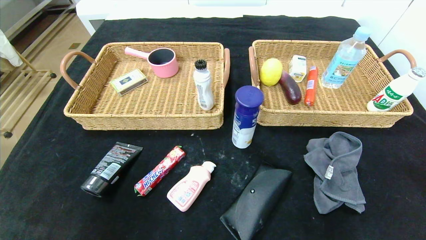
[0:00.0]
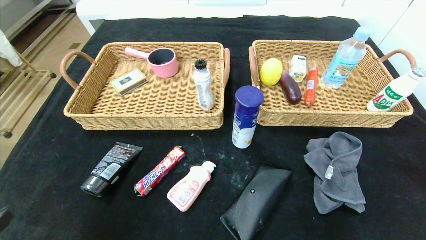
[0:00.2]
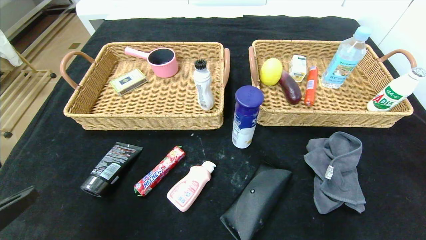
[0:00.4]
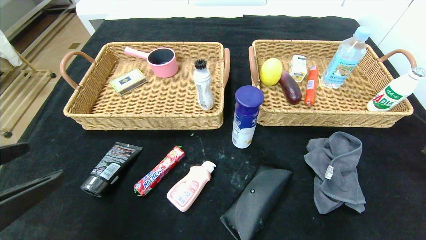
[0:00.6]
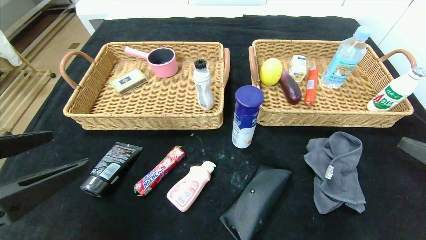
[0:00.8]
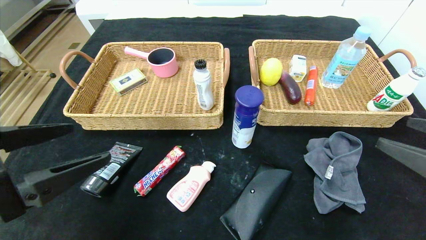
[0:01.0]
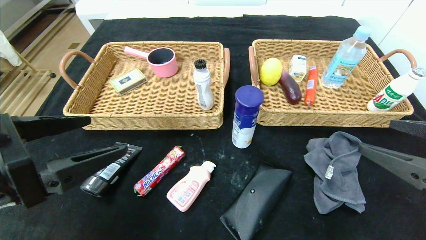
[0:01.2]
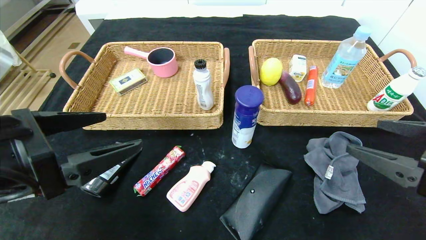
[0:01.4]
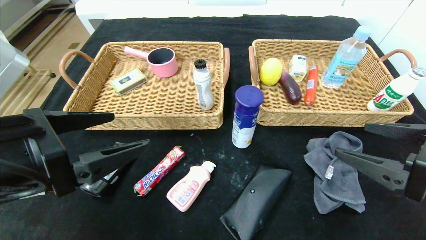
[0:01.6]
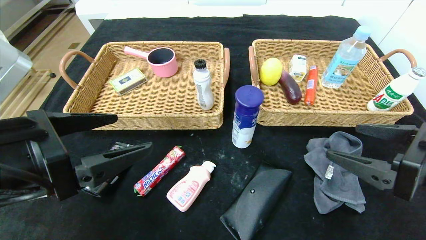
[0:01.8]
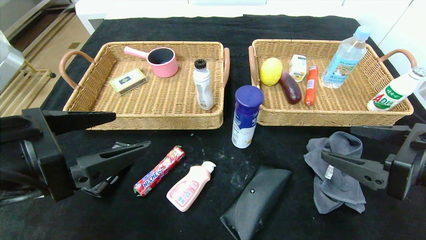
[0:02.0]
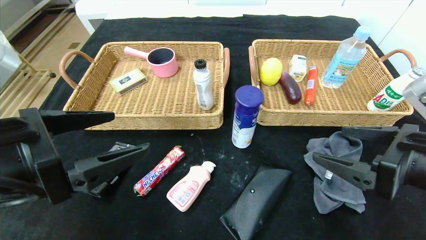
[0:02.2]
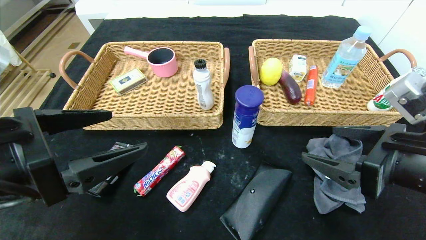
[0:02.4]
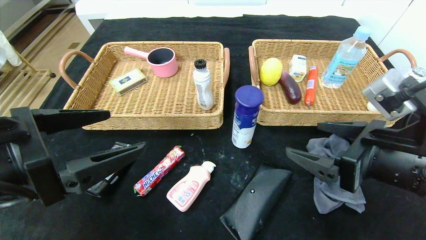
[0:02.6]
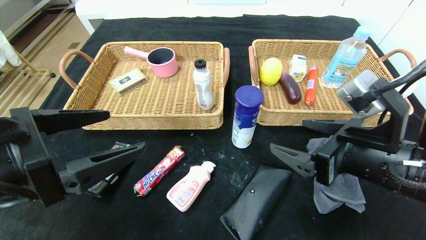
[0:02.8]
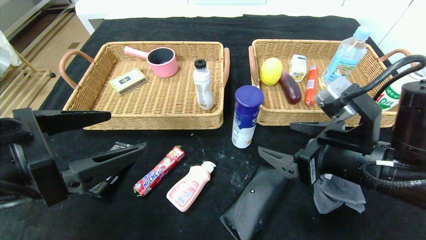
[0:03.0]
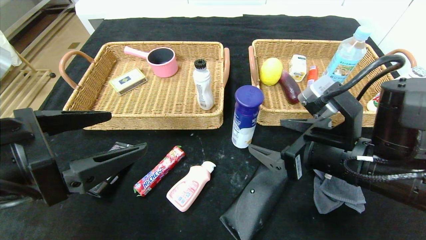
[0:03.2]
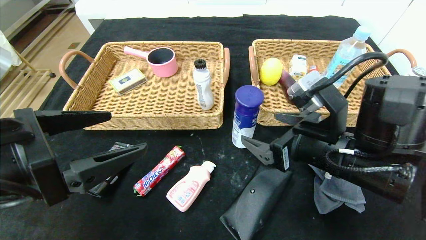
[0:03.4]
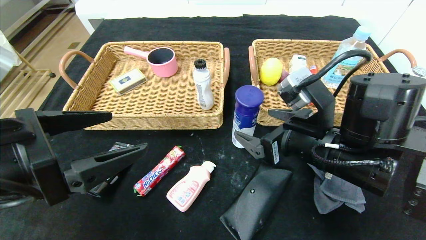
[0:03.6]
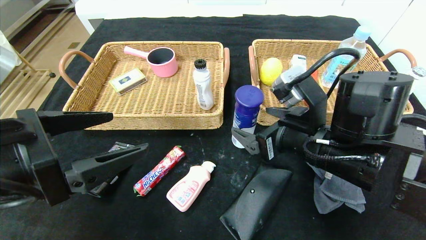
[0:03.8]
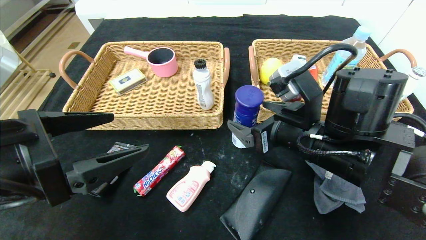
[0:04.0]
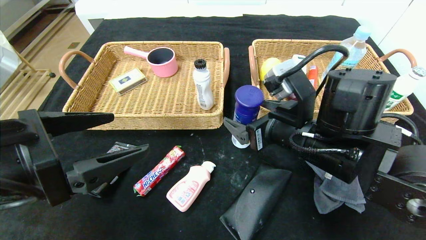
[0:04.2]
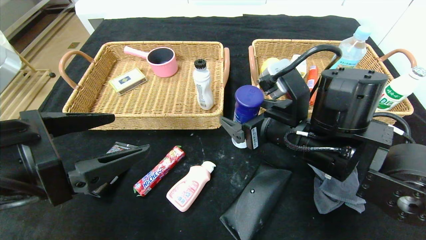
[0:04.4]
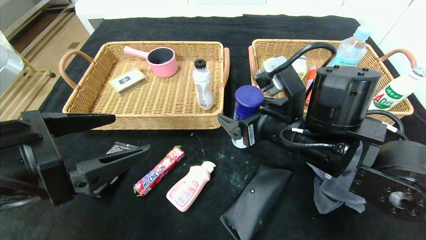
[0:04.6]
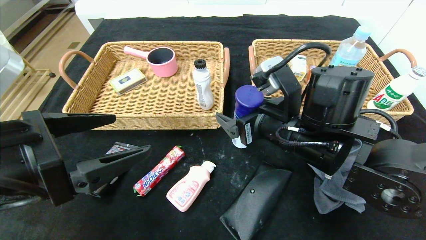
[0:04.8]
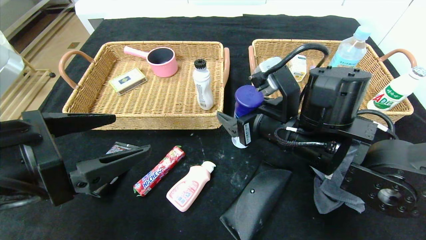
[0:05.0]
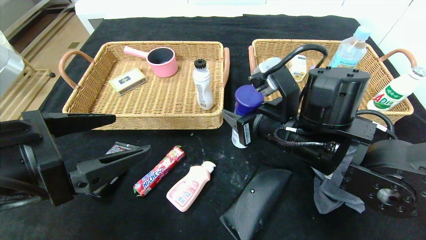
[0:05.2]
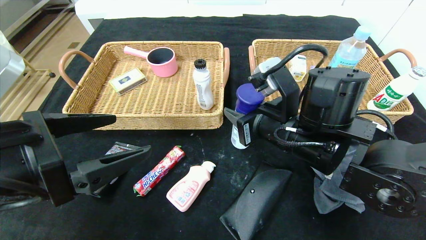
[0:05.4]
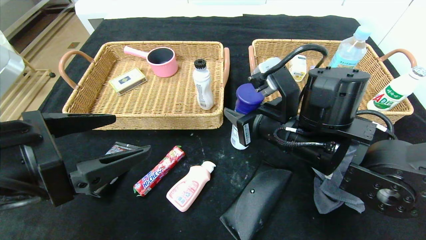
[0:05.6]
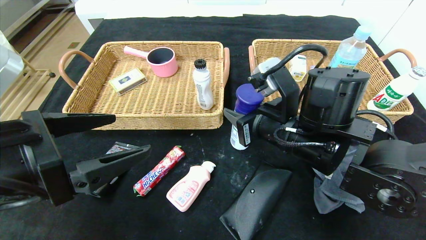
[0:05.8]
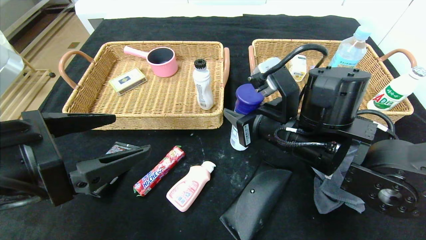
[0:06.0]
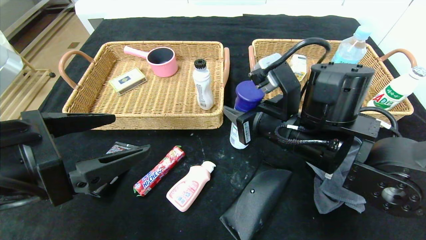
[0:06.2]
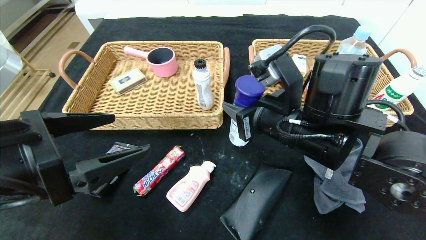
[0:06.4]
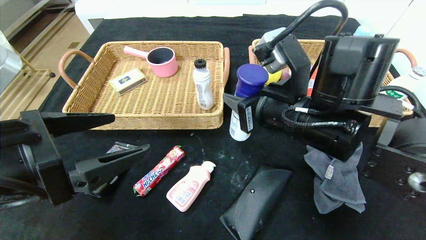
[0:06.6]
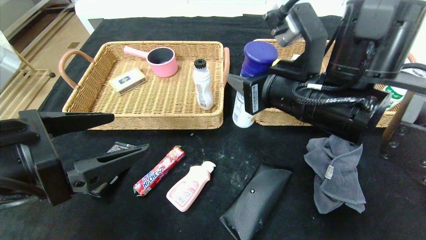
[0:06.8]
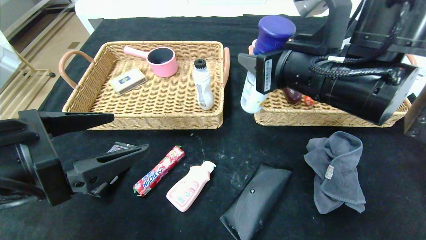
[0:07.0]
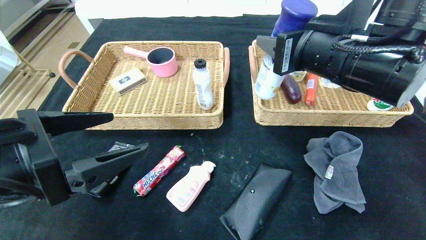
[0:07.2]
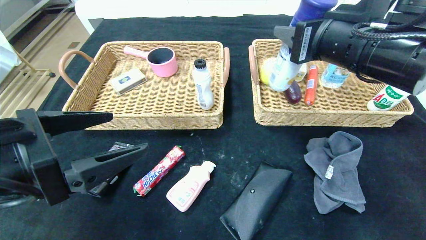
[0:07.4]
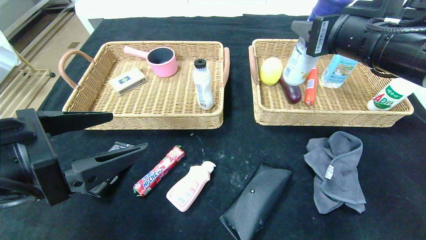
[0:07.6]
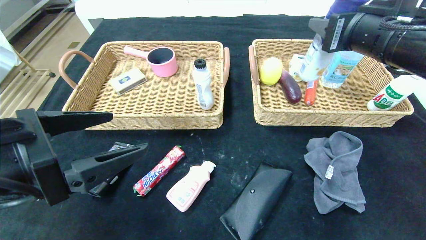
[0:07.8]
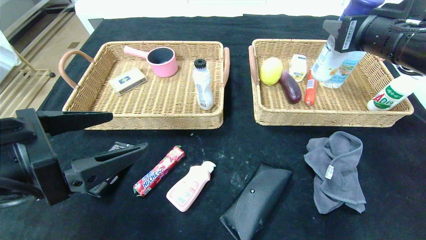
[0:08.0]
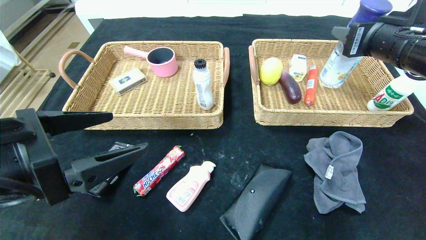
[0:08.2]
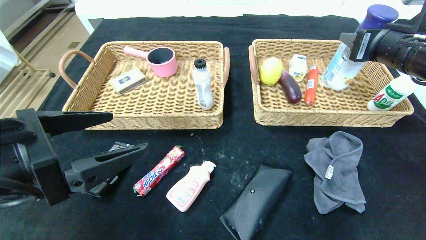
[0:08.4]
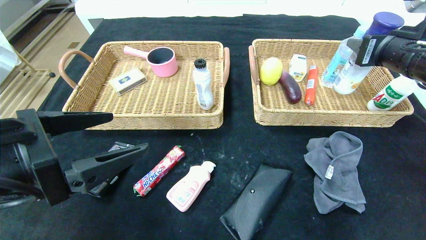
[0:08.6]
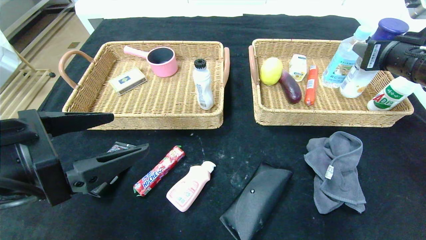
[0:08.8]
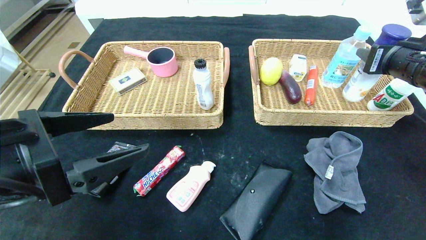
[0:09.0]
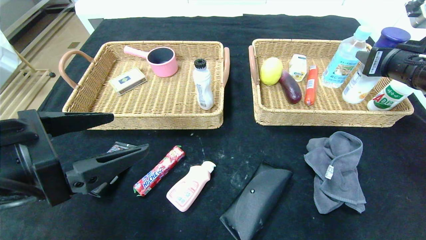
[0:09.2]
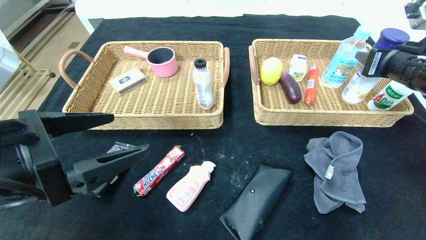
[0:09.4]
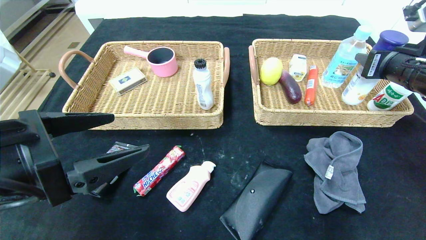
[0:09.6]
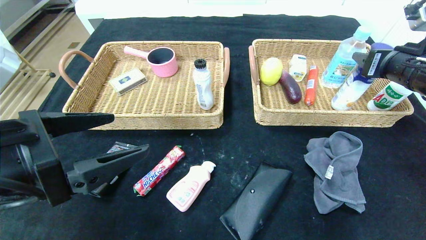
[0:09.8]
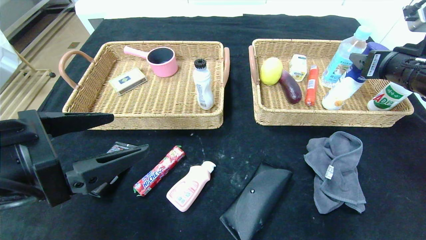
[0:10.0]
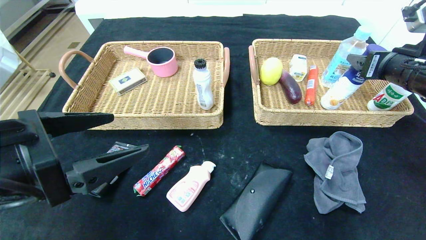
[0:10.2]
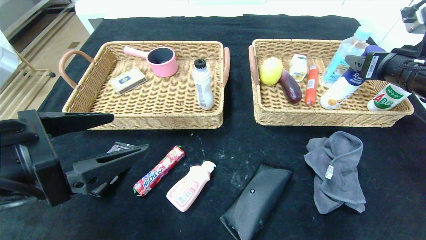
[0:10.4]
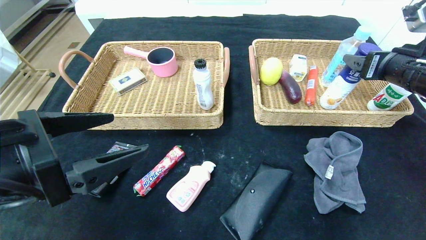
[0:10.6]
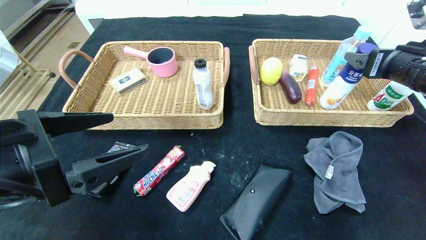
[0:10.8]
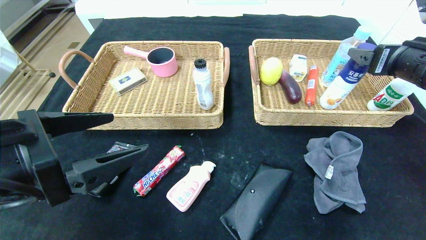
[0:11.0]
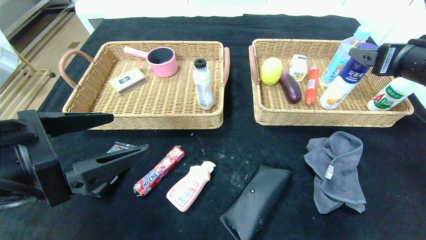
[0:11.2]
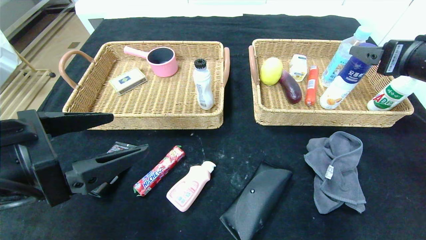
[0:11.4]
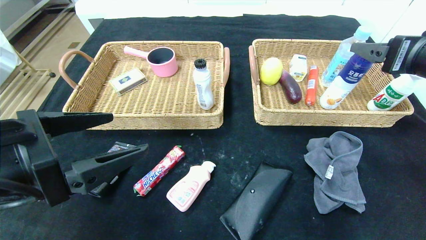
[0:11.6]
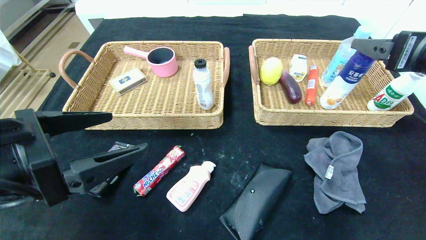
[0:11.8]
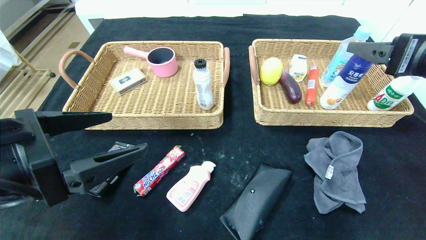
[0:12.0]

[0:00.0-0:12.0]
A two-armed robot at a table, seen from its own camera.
Step, 0:00.0 to 0:11.0: Grasp the yogurt and put it in the right basket.
0:00.0 to 0:01.6: The left gripper shifts approximately 15 cm forward, to the right and upward; the right gripper goes approximately 15 cm forward and to the left.
0:01.6 to 0:03.0: The right gripper travels to the left and forward by some 10 cm.
0:03.0 to 0:04.4: The right gripper shifts about 10 cm to the left and forward.
0:04.4 to 0:06.0: The right gripper closes its fingers.
0:06.0 to 0:07.6: The right gripper is displaced upward and to the right by about 15 cm.
0:07.6 to 0:09.0: The right gripper travels to the right by roughly 10 cm.
0:09.0 to 0:10.4: The right gripper opens.
0:10.4 to 0:12.0: The right gripper travels backward by approximately 10 cm.

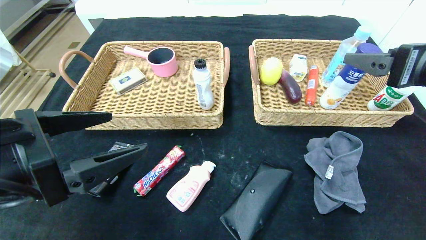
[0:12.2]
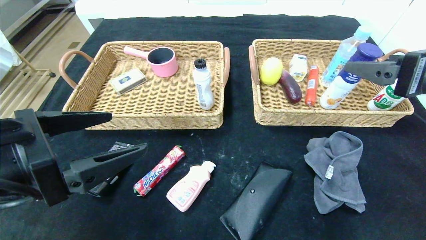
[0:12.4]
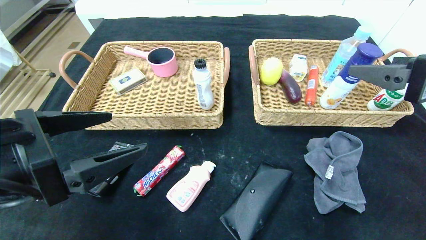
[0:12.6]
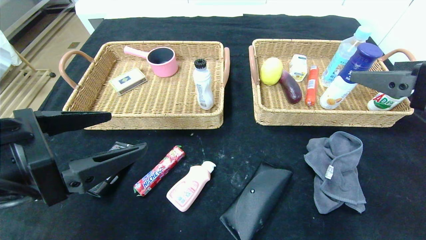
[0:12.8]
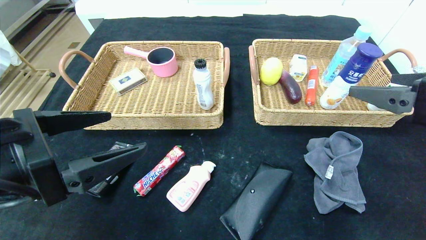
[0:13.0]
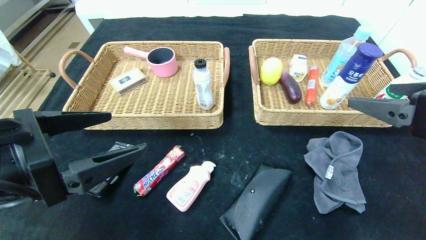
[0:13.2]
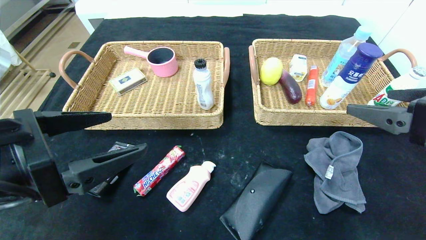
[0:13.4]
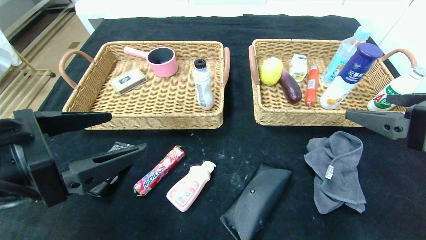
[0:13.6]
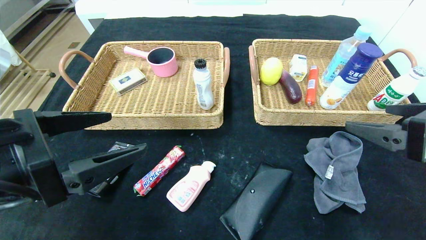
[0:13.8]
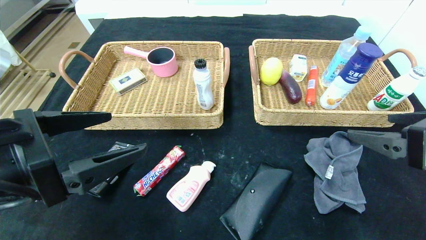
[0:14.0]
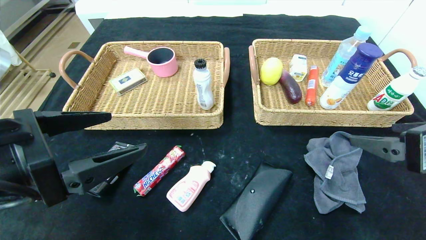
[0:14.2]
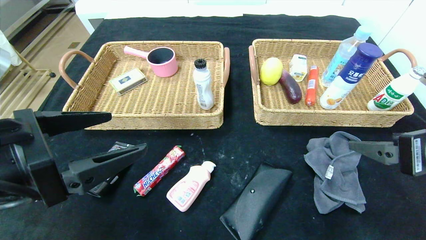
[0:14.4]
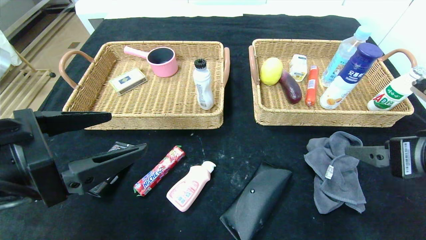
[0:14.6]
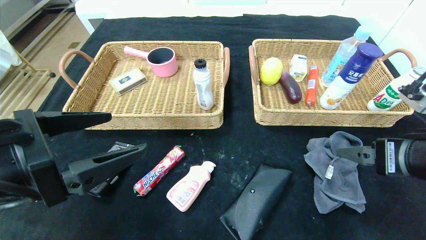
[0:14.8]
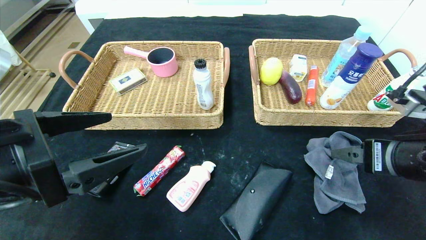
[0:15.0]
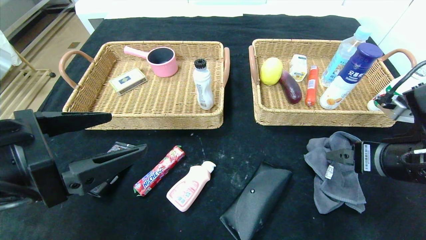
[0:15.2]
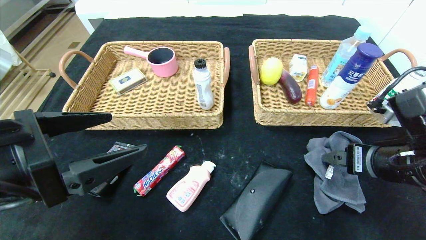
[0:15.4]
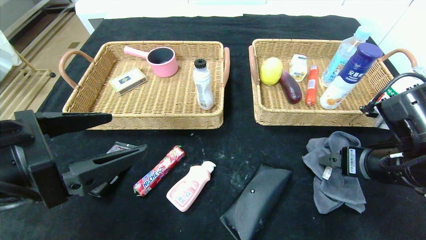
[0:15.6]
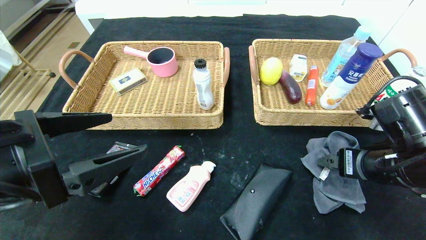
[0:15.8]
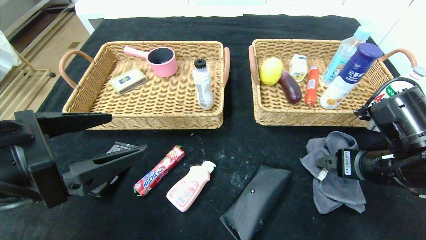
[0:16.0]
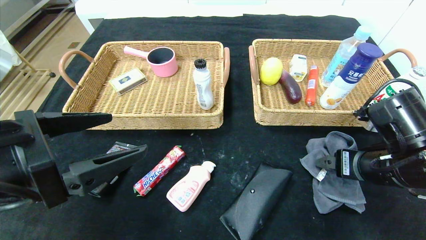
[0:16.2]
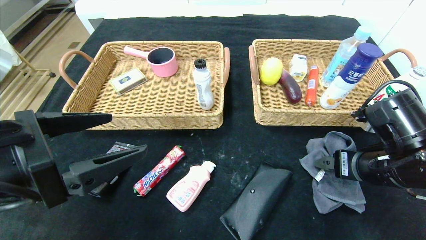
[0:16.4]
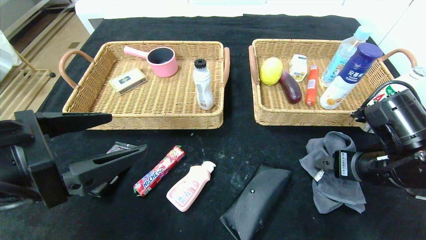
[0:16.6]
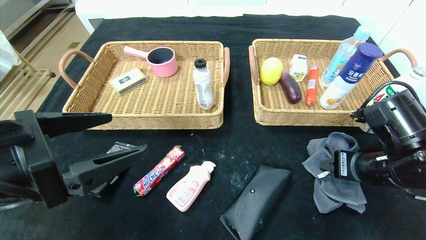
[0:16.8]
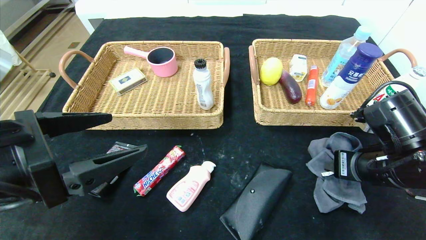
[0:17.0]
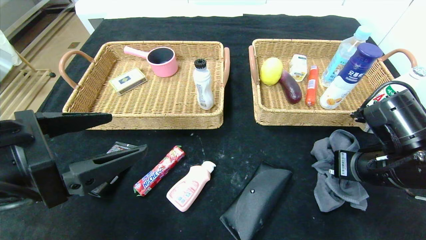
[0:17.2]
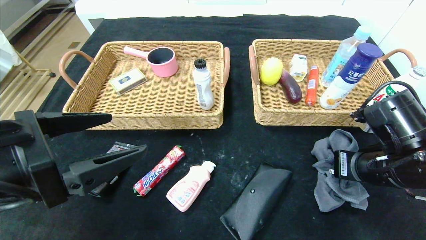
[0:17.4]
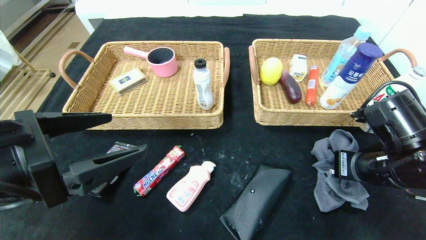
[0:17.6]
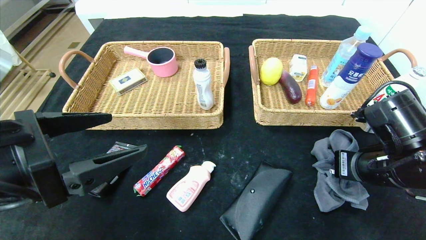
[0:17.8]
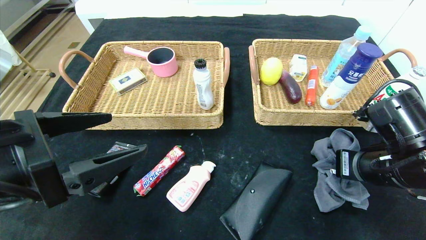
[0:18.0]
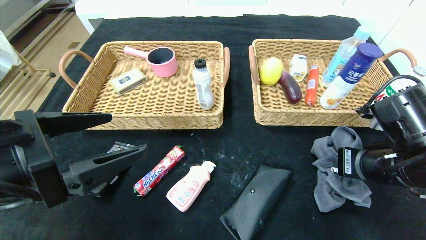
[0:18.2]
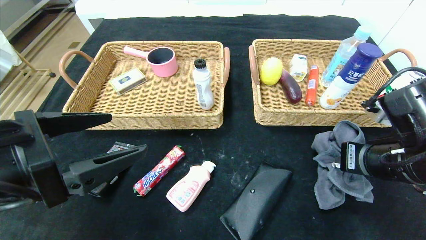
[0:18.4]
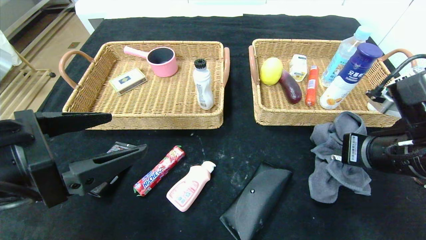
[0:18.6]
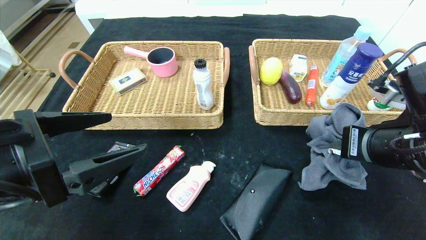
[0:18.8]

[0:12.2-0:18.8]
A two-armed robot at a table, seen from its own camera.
0:12.2 to 0:13.8: The right gripper ends up approximately 5 cm from where it was.
0:13.8 to 0:15.4: The right gripper heads downward, covering about 5 cm.
0:15.4 to 0:17.2: The right gripper closes its fingers.
0:17.2 to 0:18.8: The right gripper changes place by some 5 cm.
